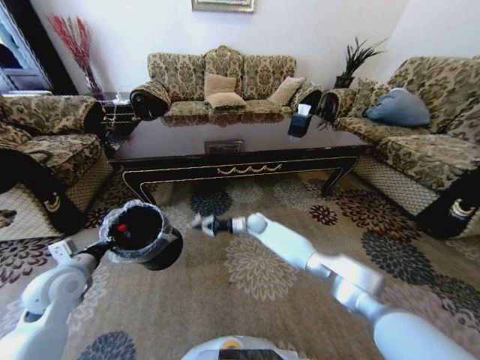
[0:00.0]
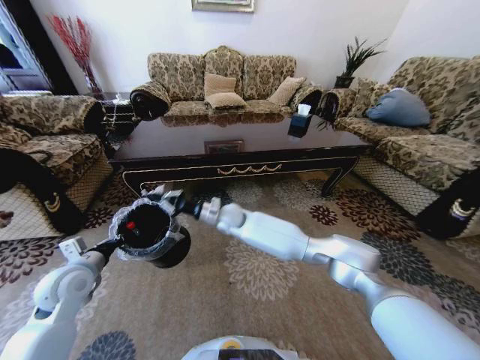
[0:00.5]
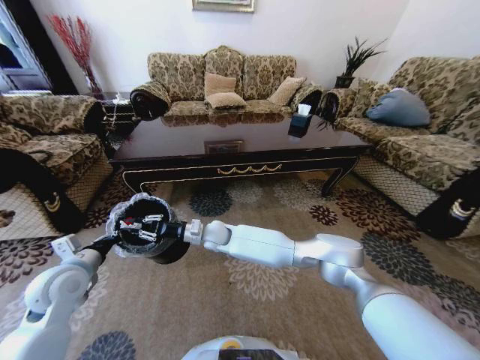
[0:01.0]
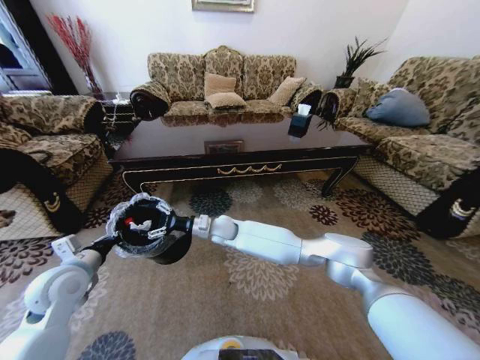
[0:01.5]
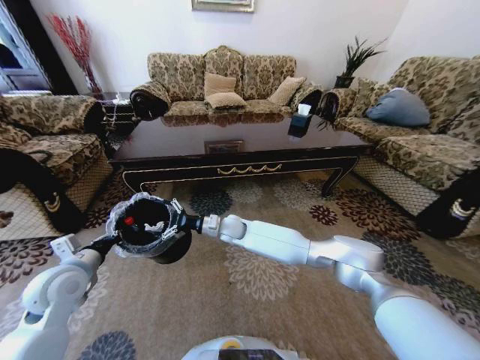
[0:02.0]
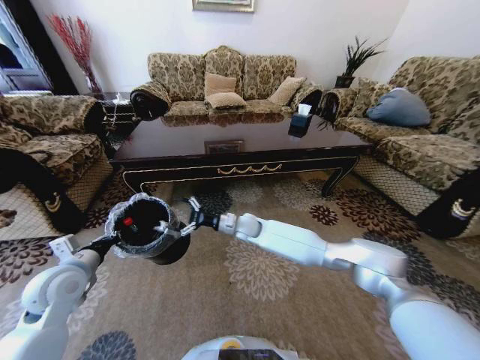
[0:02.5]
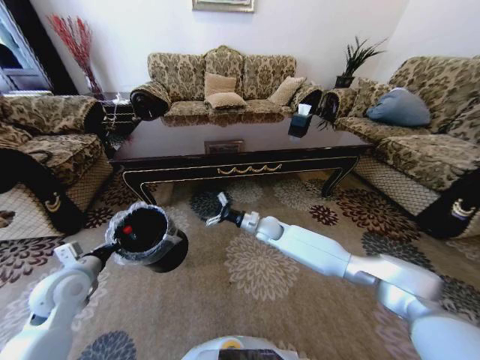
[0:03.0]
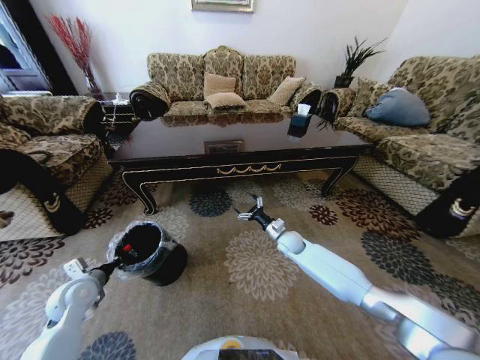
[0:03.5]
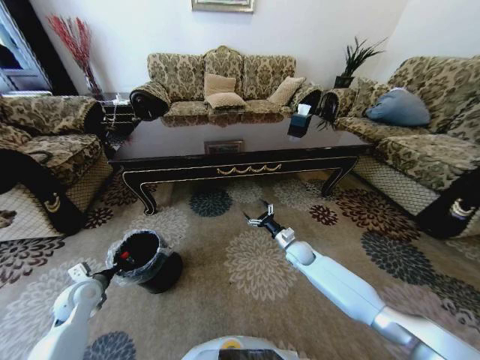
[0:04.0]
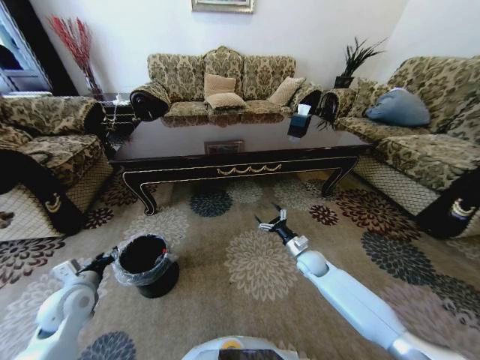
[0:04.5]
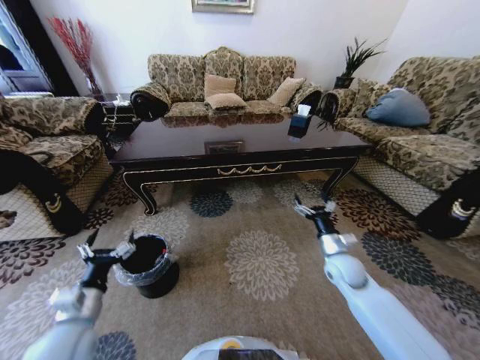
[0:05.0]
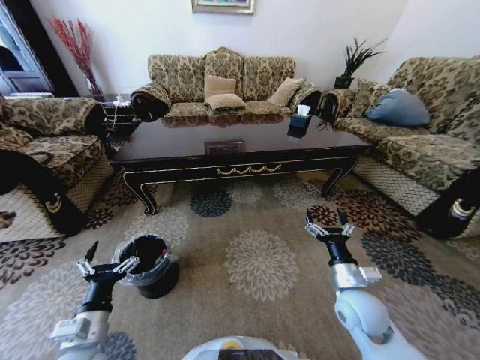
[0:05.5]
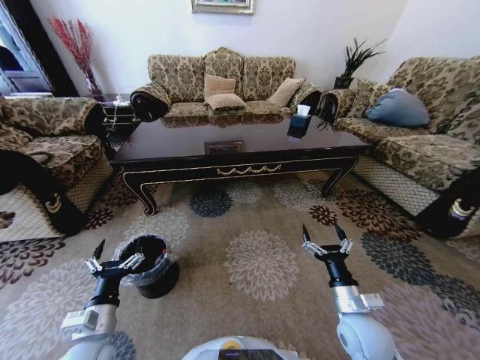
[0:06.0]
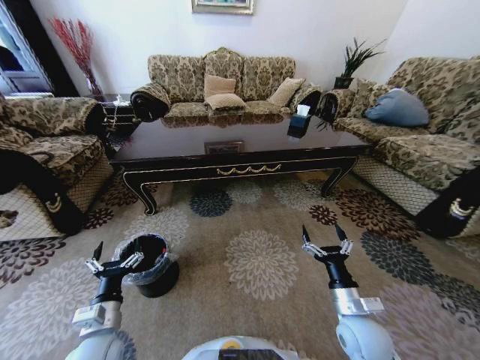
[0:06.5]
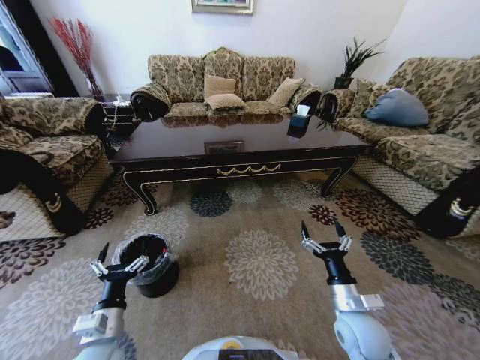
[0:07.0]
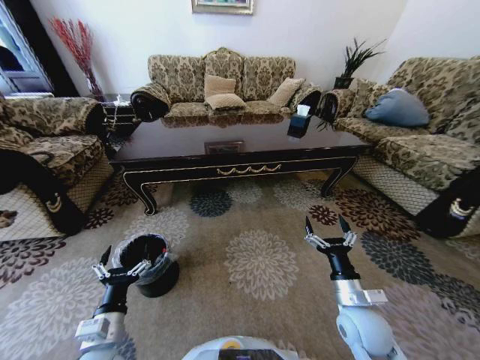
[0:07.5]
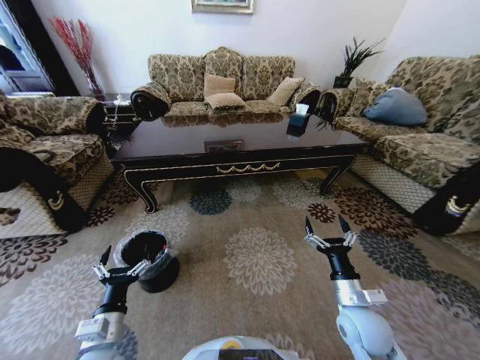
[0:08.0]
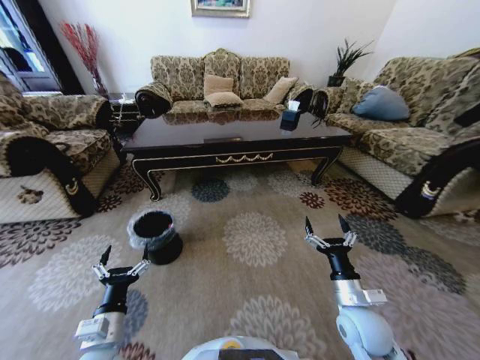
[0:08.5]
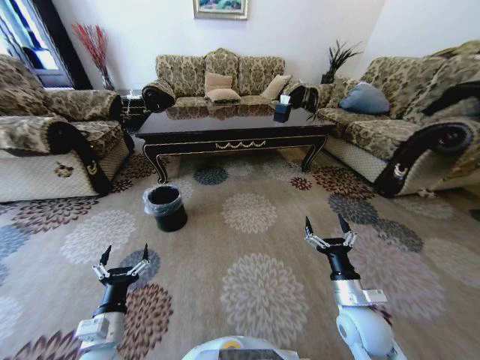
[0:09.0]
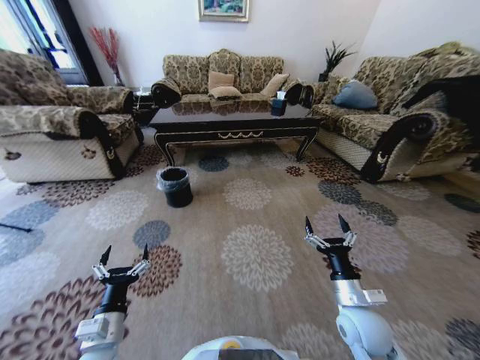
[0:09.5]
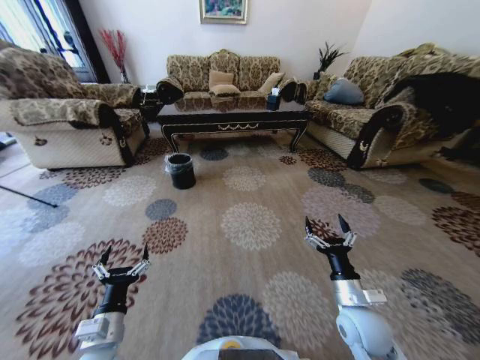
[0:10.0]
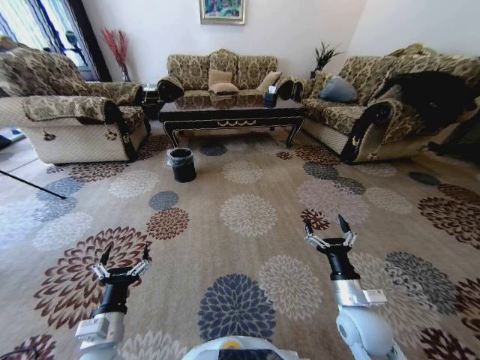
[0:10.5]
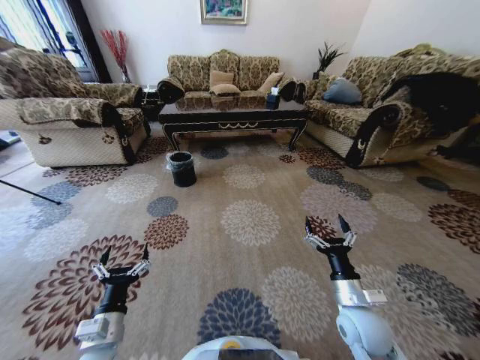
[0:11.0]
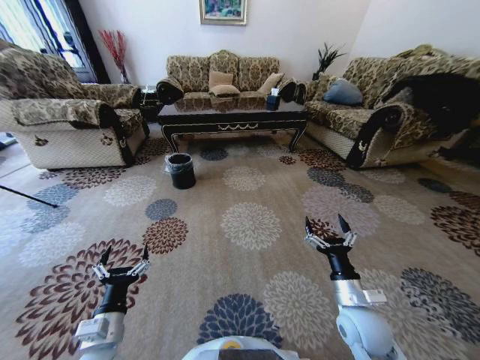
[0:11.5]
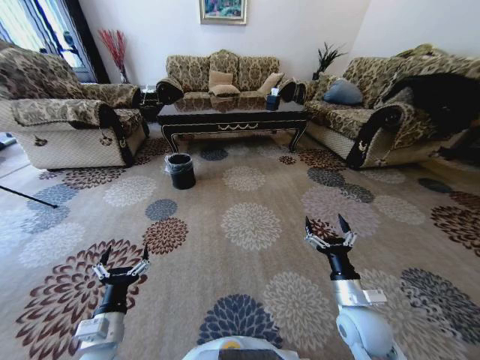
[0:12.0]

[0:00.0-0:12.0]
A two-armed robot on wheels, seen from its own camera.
Task of the whole recording: Move to the front of the table and pick up the trash from the floor, then place it into the trash bin.
0:00.0 to 0:02.0: The right gripper heads to the left, upward and backward, covering roughly 15 cm, and opens up.
0:02.0 to 0:04.0: The right gripper goes approximately 30 cm to the right and downward. Meanwhile the left gripper is displaced downward by some 15 cm.
0:04.0 to 0:06.0: The left gripper heads to the right and backward, covering some 20 cm, and opens up. Meanwhile the right gripper heads backward, covering about 25 cm.
0:06.0 to 0:08.0: There are only small adjustments of the grippers.
0:10.0 to 0:12.0: Both grippers stay about where they are.

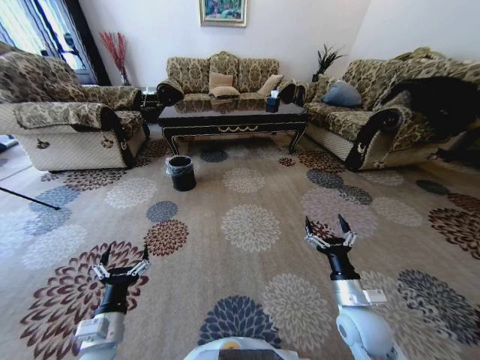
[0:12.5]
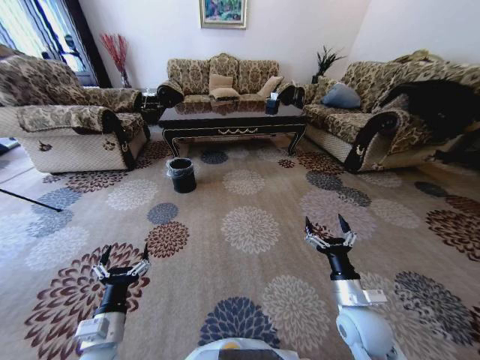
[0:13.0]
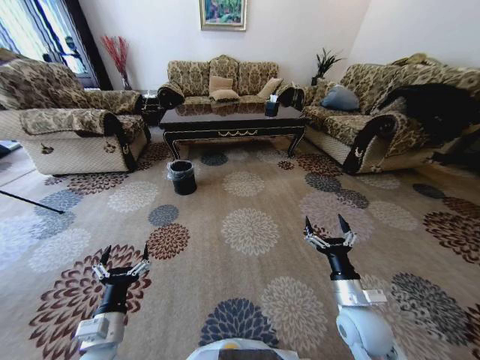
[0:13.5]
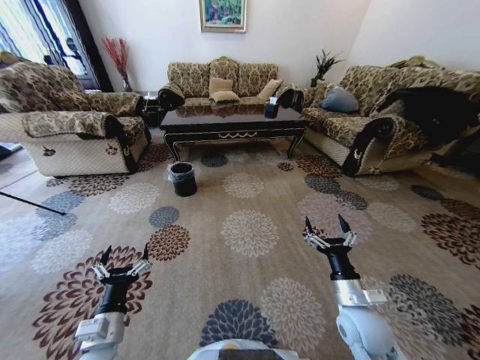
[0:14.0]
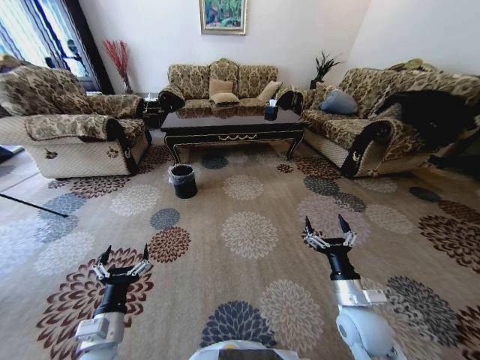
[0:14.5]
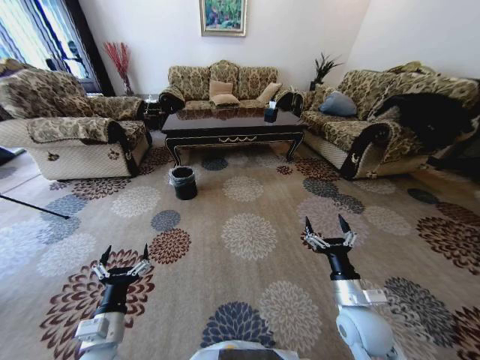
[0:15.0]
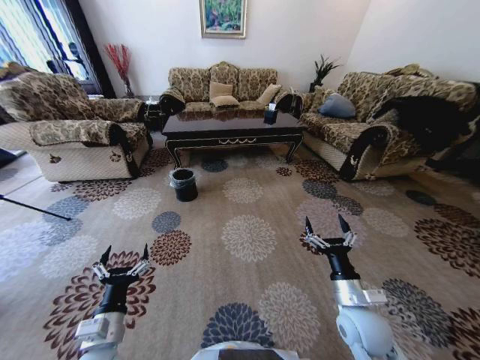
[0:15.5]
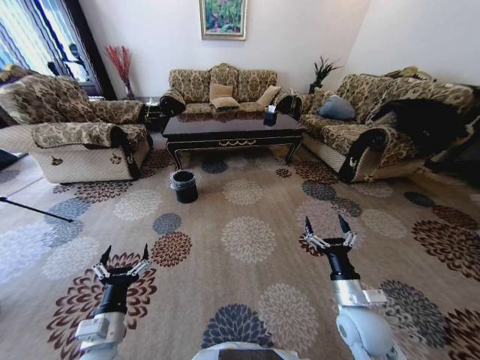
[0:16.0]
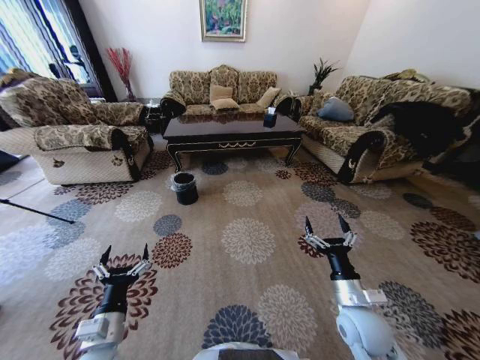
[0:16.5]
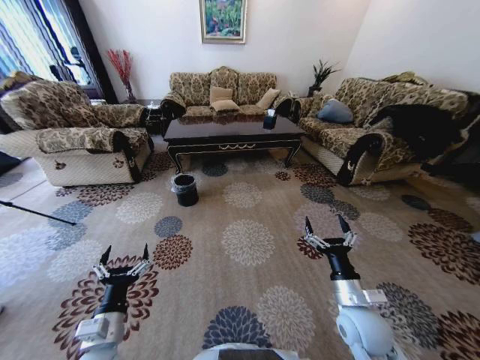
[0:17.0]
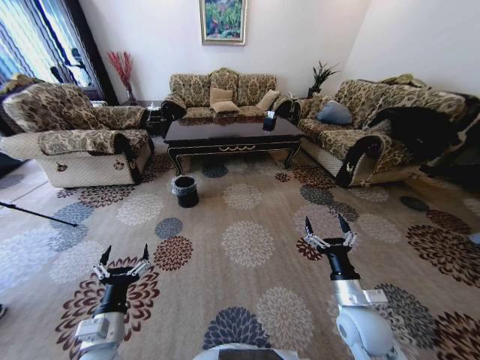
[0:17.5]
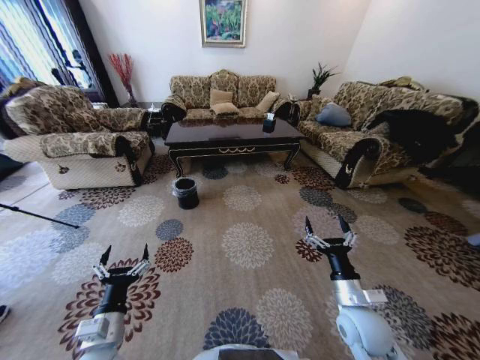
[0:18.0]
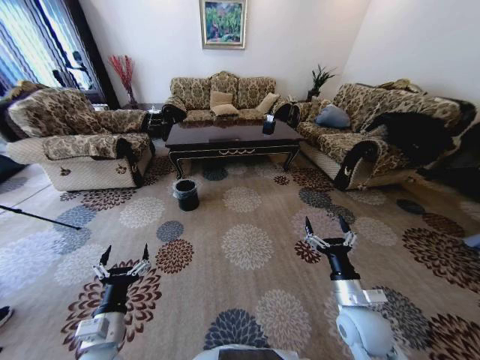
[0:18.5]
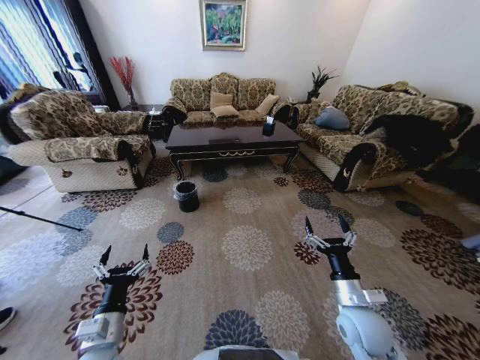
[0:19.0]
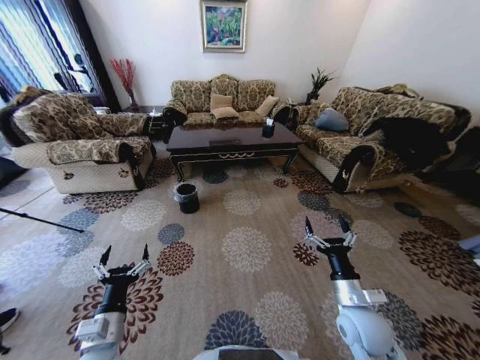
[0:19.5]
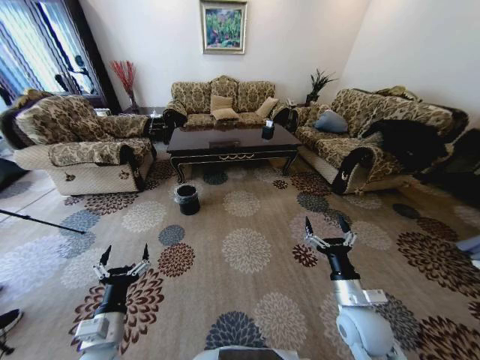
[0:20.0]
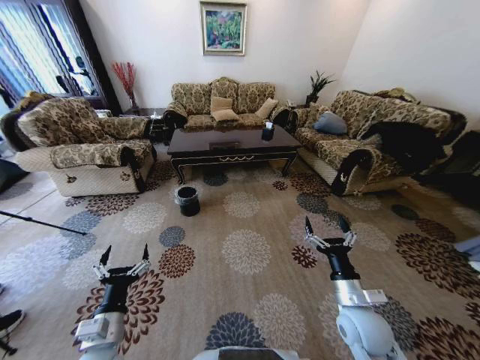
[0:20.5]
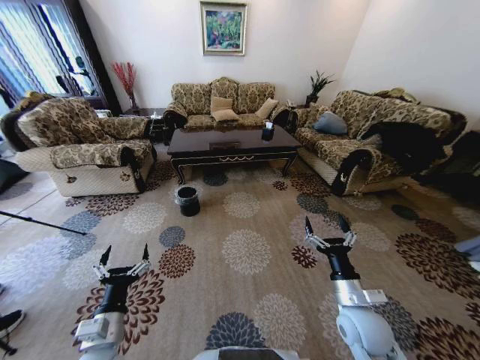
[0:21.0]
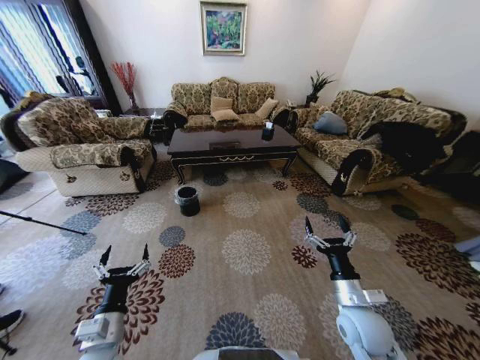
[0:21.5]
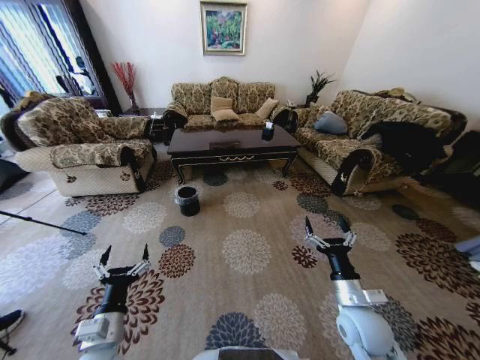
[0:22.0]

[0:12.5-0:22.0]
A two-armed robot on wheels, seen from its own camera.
Task of the whole recording: Move to the front of the table and pick up the trash from the floor, then place it into the trash bin.
0:20.0 to 0:22.0: The two grippers keep their place.

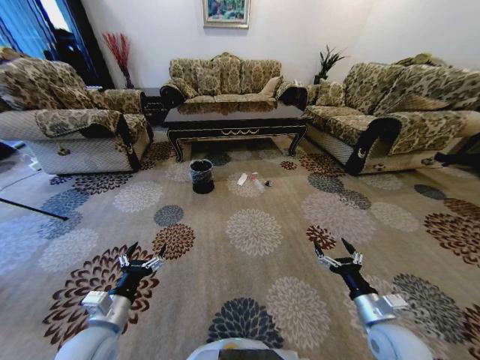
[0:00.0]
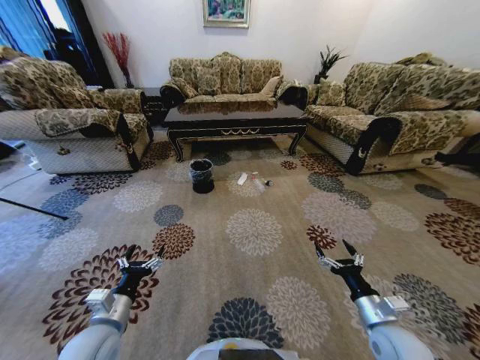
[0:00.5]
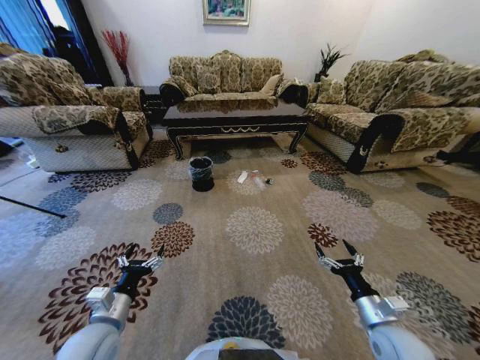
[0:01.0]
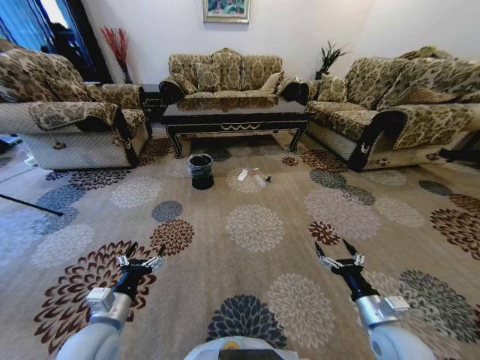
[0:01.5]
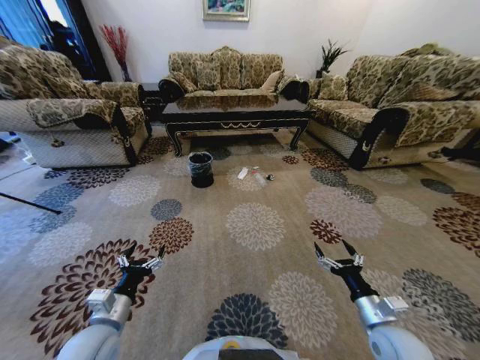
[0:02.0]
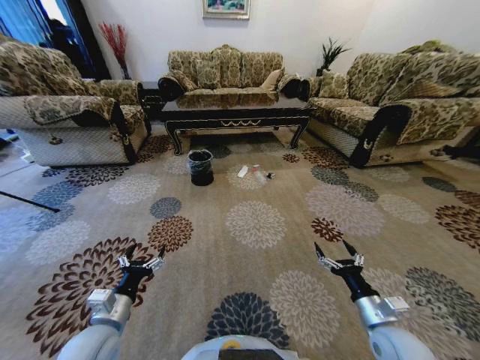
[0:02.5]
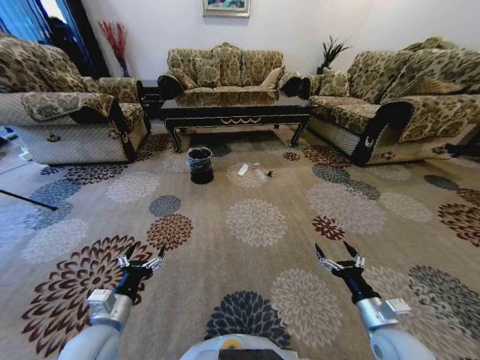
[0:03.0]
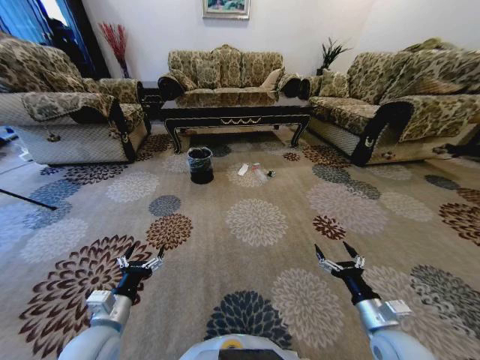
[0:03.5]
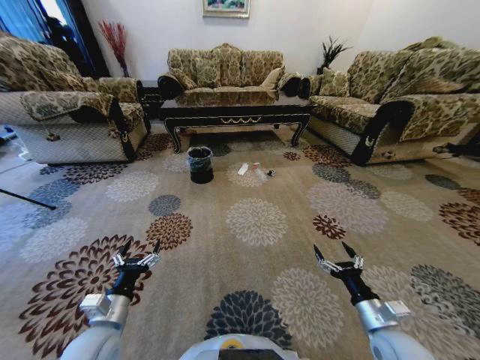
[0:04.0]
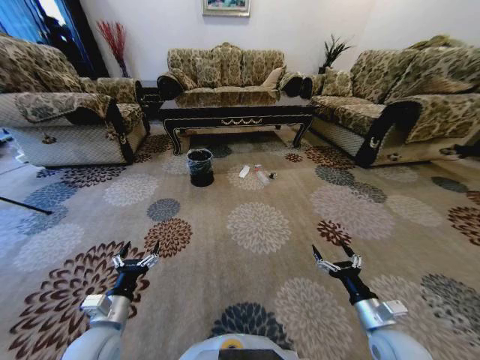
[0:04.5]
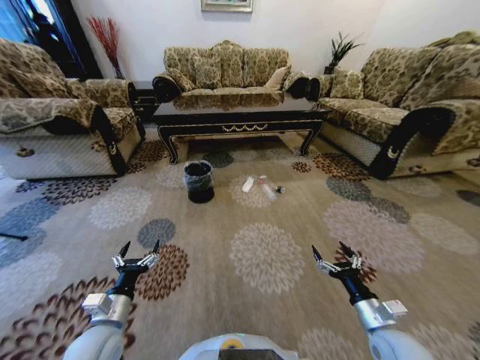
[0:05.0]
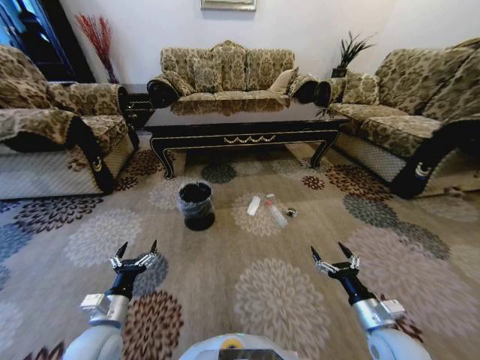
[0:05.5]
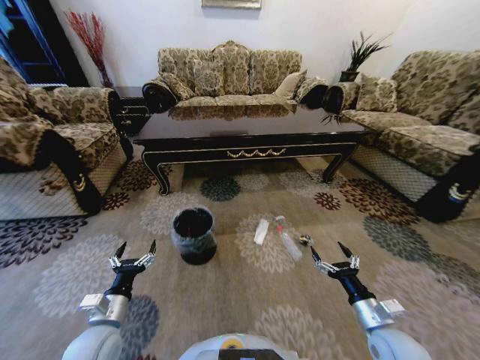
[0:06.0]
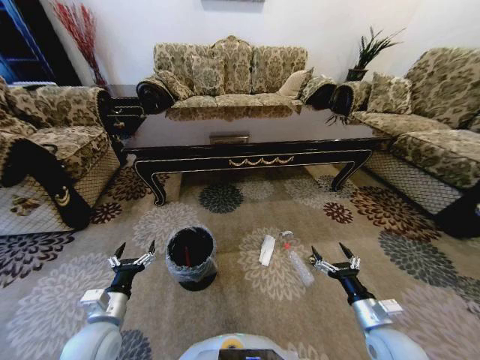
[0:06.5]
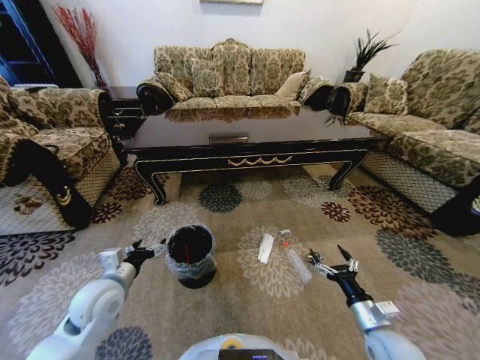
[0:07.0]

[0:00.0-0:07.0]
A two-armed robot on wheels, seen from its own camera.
Task of the whole recording: Move to the front of the table and pick up the trash from the floor, then place it into the trash bin.
0:05.0 to 0:07.0: The left gripper travels forward and upward by some 10 cm.
